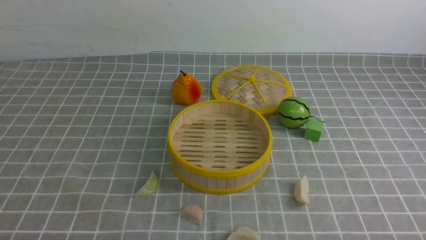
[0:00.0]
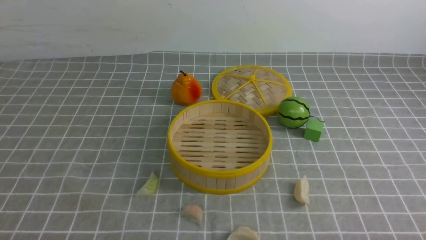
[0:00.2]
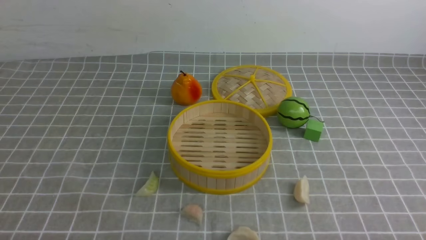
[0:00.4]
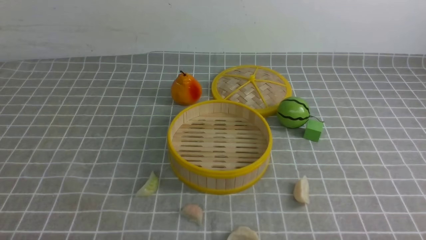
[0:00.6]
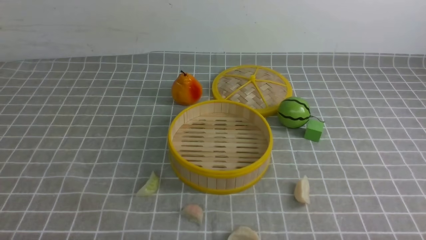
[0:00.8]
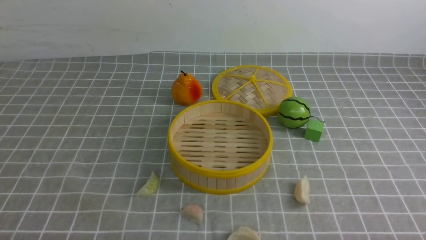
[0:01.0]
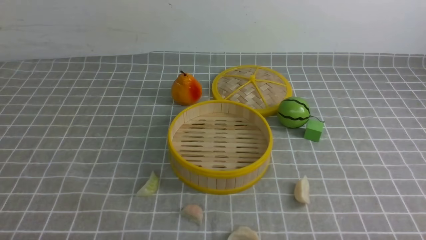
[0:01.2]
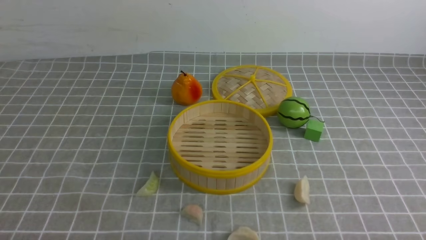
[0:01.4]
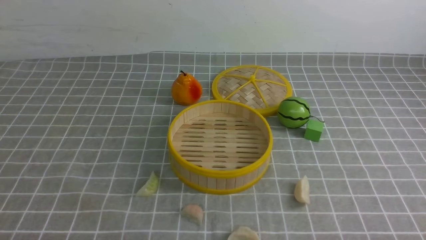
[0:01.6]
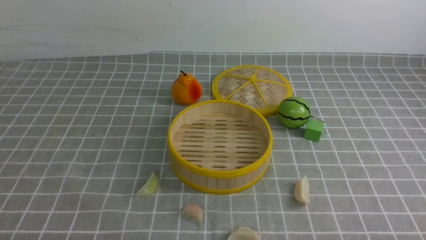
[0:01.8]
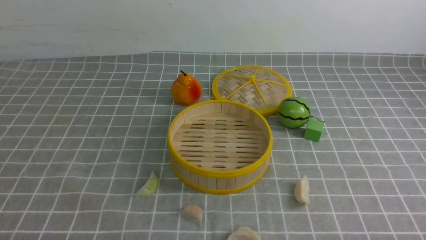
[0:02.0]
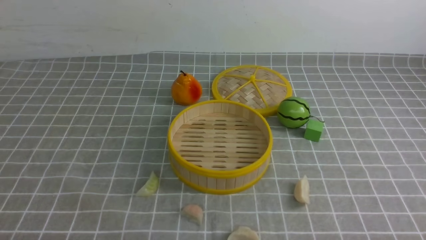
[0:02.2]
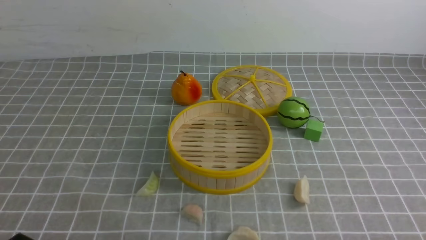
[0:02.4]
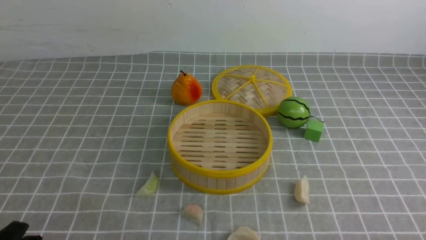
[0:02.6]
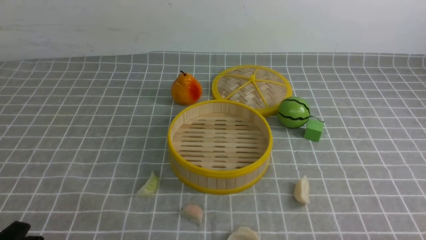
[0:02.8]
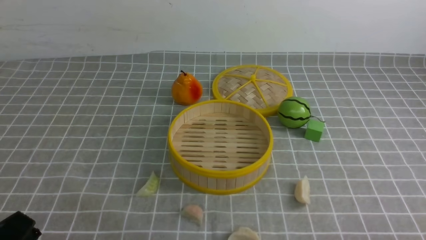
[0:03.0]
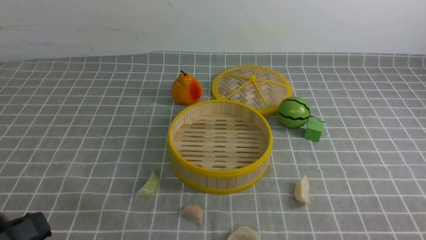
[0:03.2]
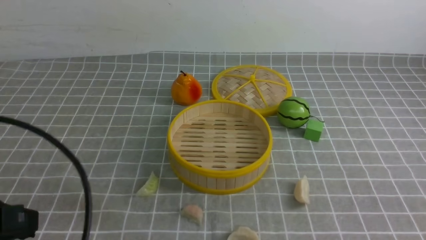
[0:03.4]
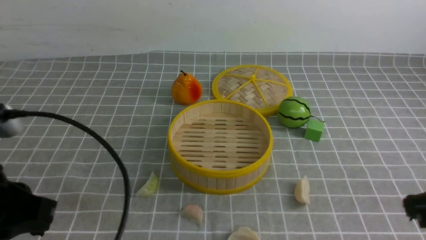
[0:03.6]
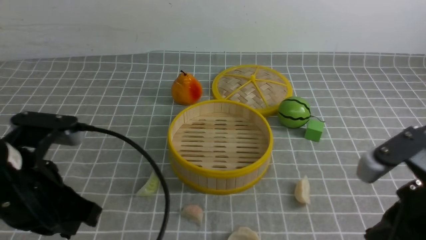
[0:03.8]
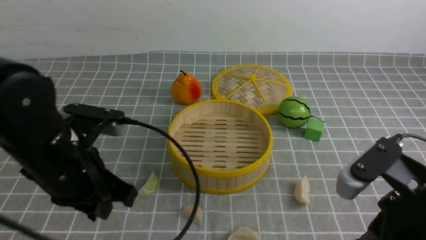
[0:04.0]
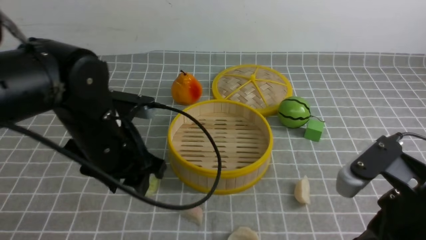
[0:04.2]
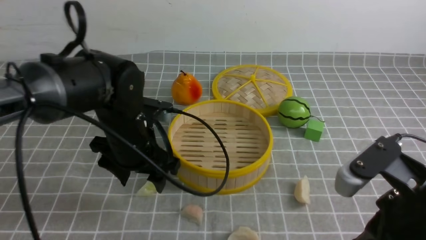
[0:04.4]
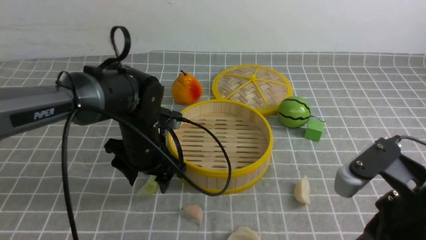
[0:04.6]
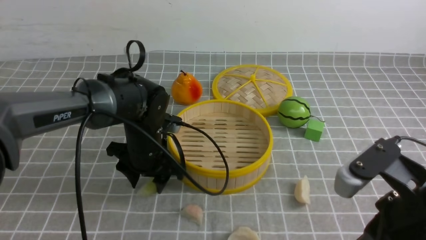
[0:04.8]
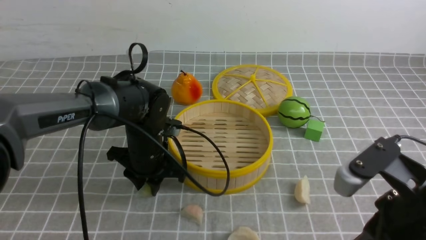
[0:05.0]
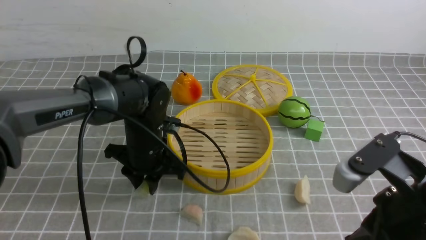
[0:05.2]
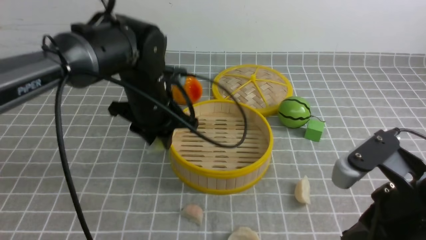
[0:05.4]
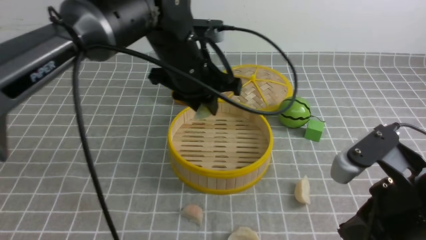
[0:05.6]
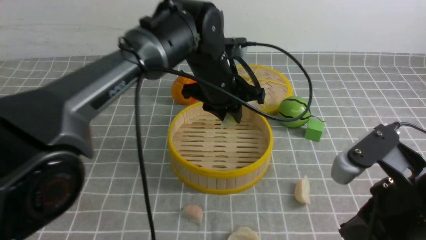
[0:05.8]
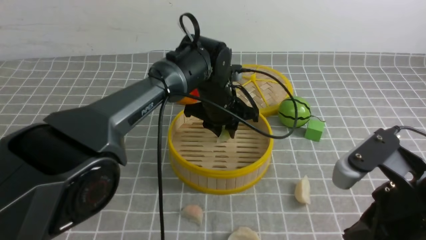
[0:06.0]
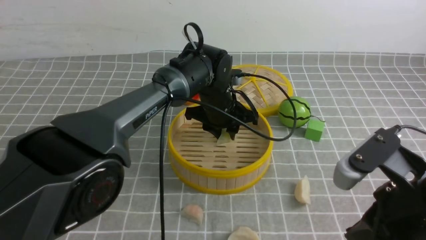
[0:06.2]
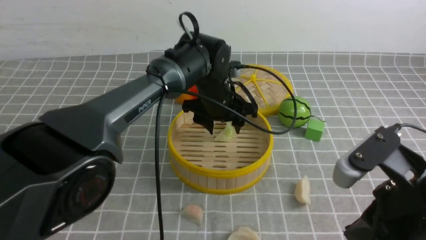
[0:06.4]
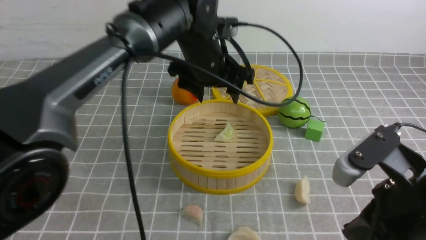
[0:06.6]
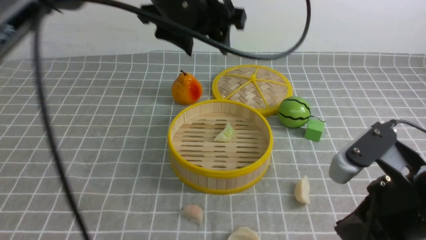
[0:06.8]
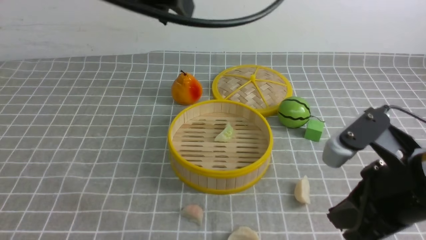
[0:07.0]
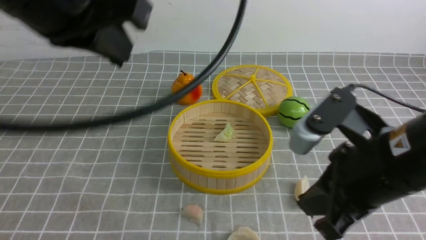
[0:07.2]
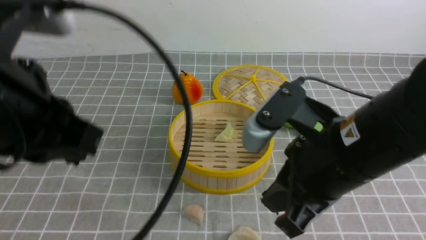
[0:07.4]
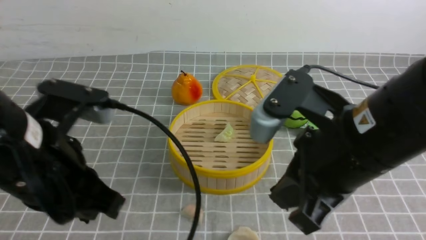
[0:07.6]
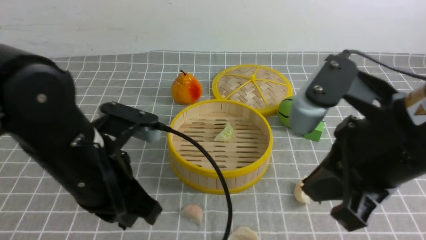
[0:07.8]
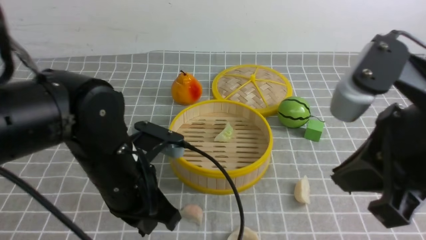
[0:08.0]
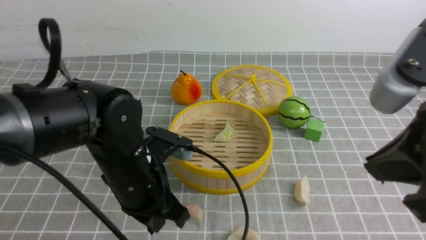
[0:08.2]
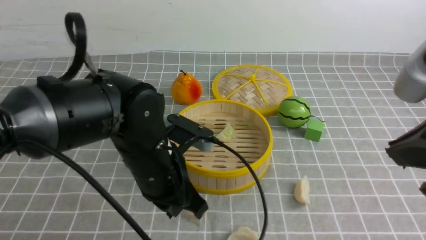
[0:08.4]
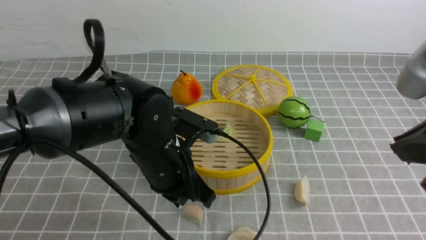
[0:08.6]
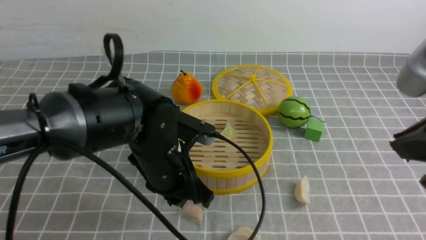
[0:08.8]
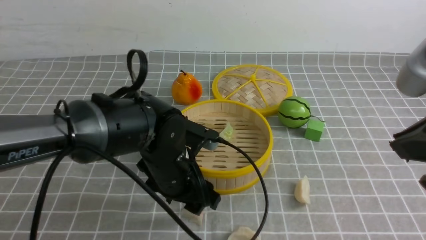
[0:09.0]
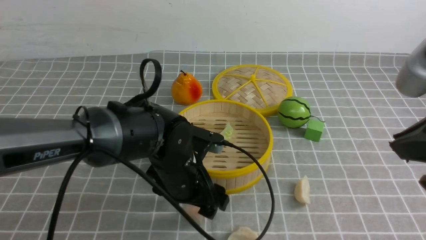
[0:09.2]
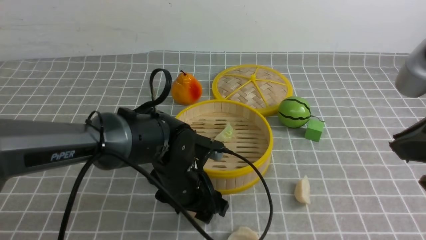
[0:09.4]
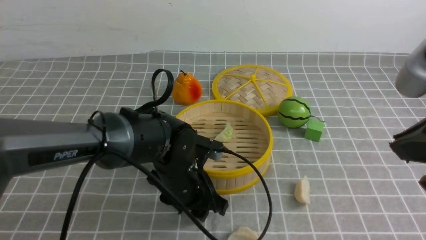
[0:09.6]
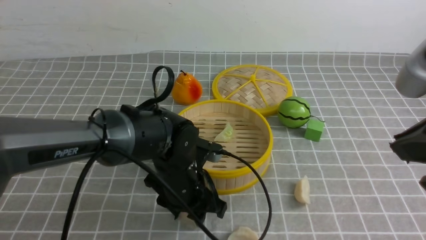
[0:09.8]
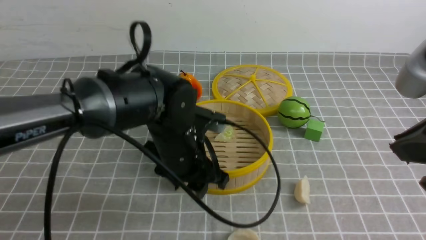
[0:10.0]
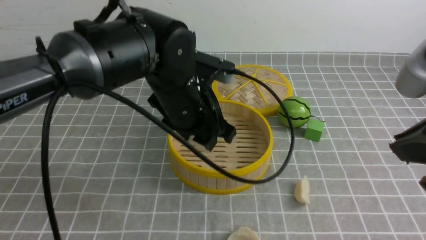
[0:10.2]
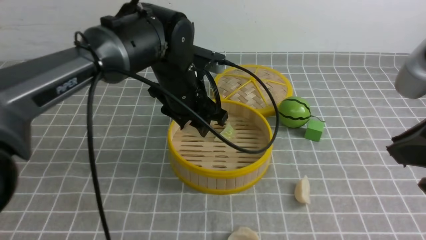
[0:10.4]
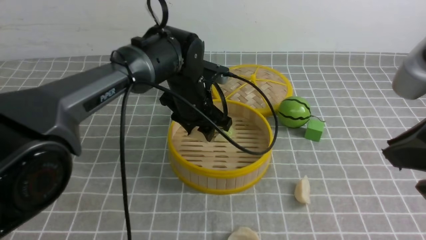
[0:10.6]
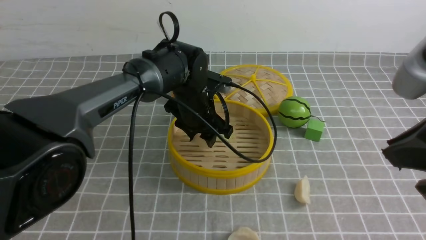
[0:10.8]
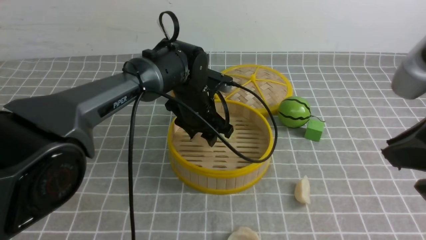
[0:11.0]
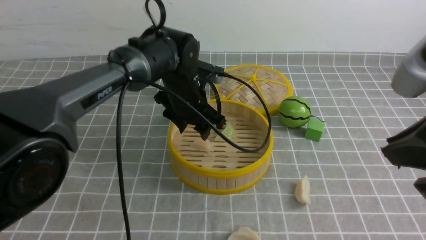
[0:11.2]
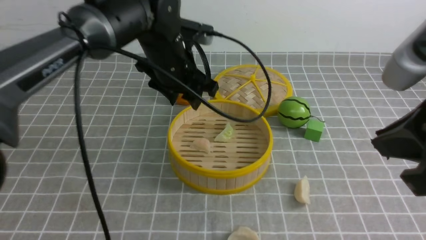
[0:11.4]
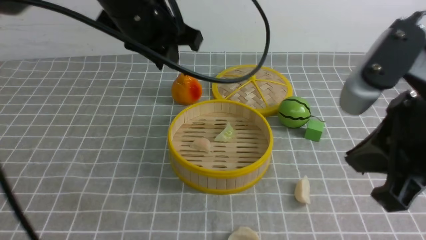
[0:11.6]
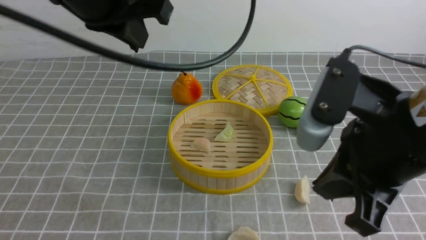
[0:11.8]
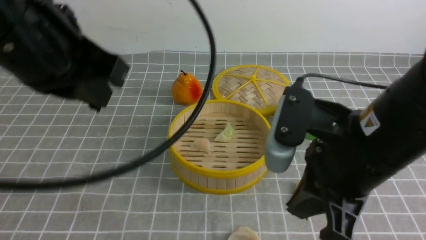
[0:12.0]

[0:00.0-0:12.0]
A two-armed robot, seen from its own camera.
Task of the whole recording: put the dumplings into the steamer on the table with the grey tablecloth.
Step, 0:00.0 to 0:05.2: use the left arm to grab a dumpling.
Step, 0:05.4 to 0:06.6: use the left arm to put the dumpling into the steamer.
Step, 0:06.8 to 0:09.8: use the left arm to grab a dumpling.
Step, 0:10.0 to 0:11.4: use the left arm to put the dumpling into the steamer.
0:00.0 to 0:01.6: The two grippers keep their place.
0:01.6 to 0:03.0: The left gripper goes some 5 cm upward.
0:03.0 to 0:04.4: The right gripper shifts some 15 cm forward, to the left and upward. Meanwhile the left gripper goes about 30 cm forward and to the right, and opens up.
0:04.4 to 0:06.0: The left gripper is displaced to the right and forward by about 15 cm, and closes up.
0:06.0 to 0:07.6: The left gripper goes about 30 cm backward, to the left and upward, and closes; the right gripper goes about 10 cm to the left and upward.
0:07.6 to 0:09.0: The right gripper moves to the right and upward, about 10 cm. Meanwhile the left gripper travels downward, forward and to the right by approximately 20 cm, and opens its fingers.
0:09.0 to 0:10.4: The left gripper heads forward and upward, covering about 10 cm.
0:10.4 to 0:12.0: The left gripper travels backward, upward and to the left by approximately 25 cm, and closes up, while the right gripper is displaced to the left and downward by approximately 10 cm.

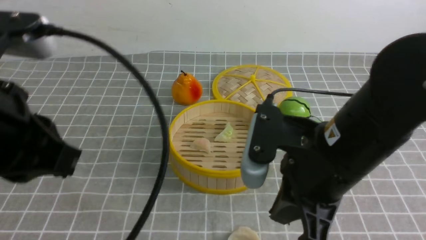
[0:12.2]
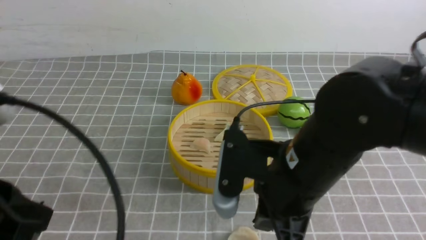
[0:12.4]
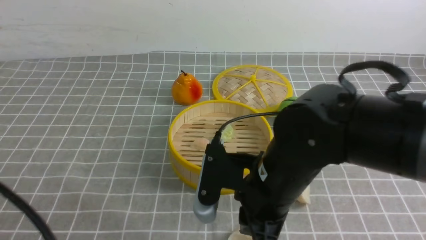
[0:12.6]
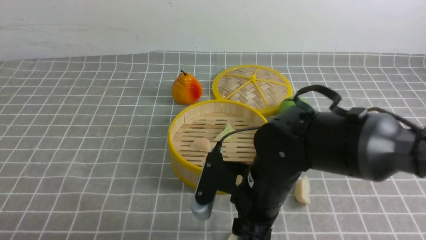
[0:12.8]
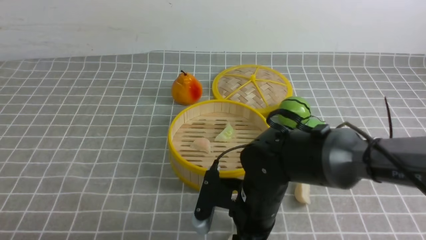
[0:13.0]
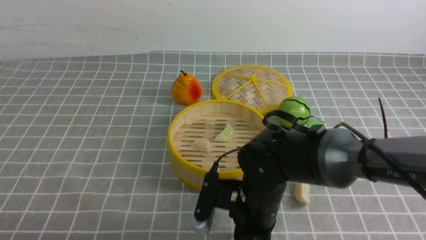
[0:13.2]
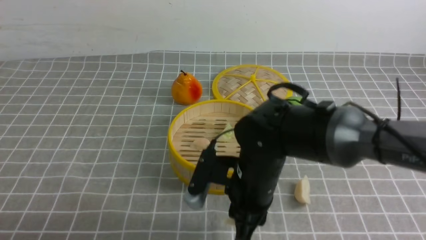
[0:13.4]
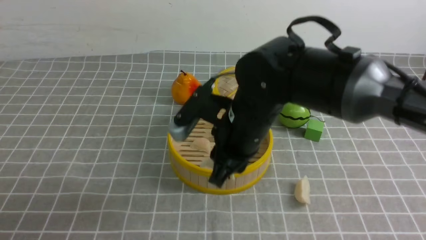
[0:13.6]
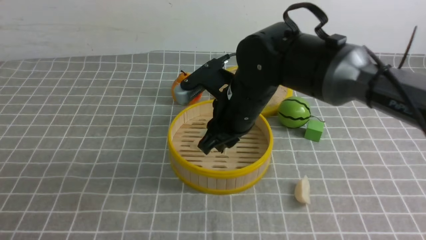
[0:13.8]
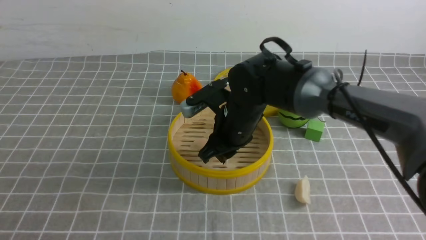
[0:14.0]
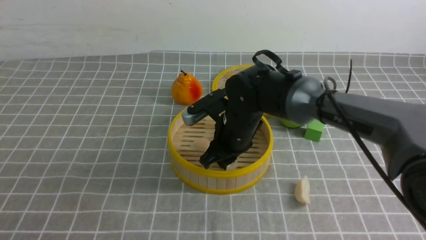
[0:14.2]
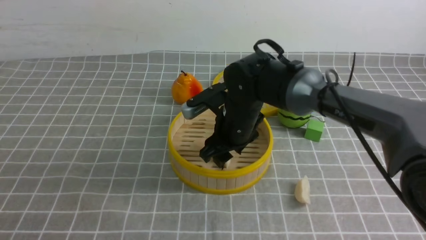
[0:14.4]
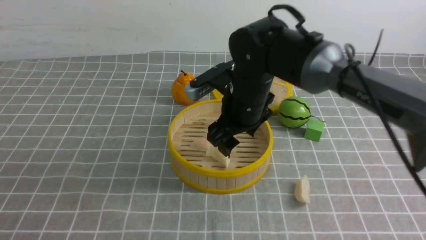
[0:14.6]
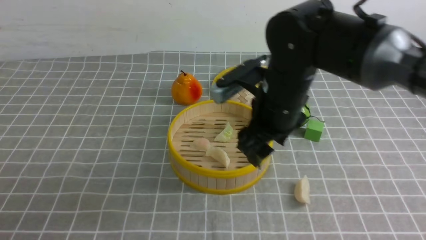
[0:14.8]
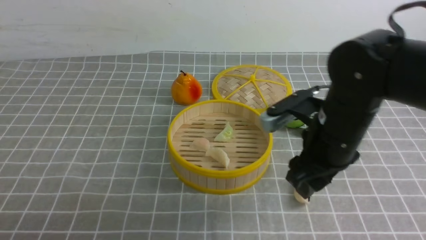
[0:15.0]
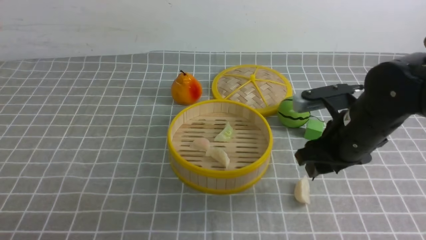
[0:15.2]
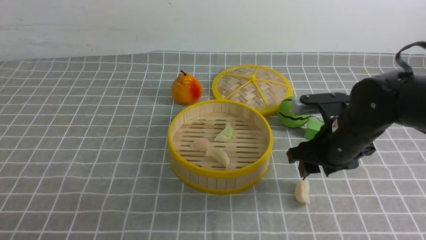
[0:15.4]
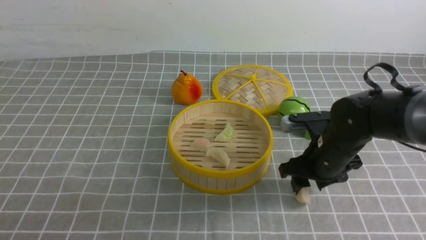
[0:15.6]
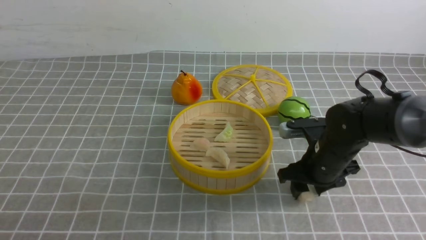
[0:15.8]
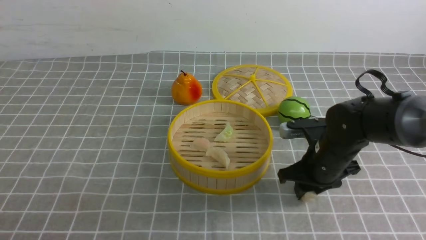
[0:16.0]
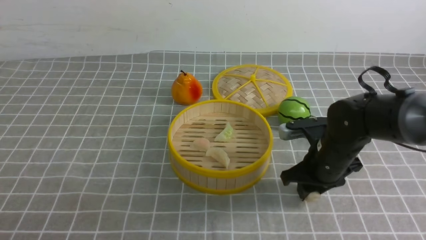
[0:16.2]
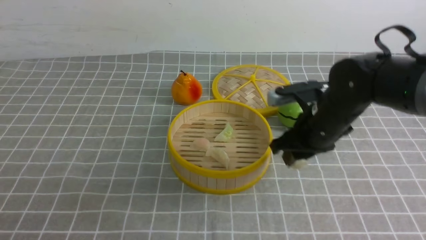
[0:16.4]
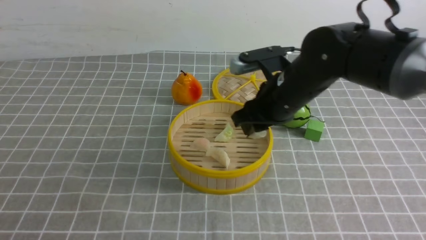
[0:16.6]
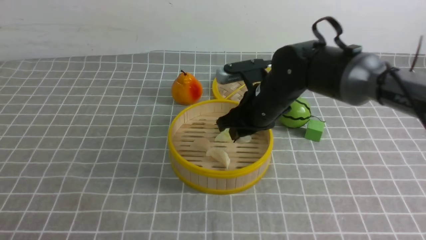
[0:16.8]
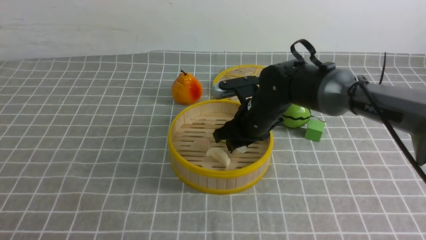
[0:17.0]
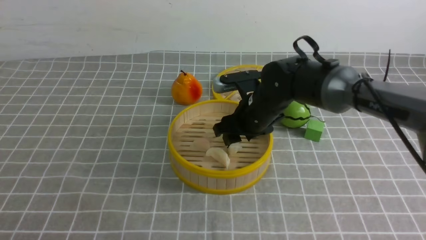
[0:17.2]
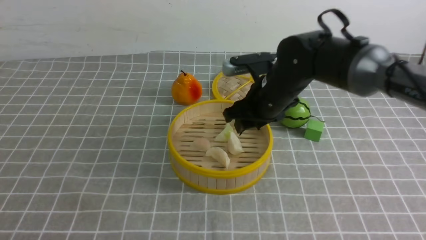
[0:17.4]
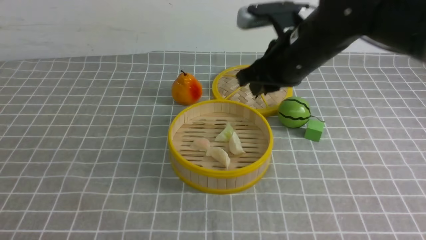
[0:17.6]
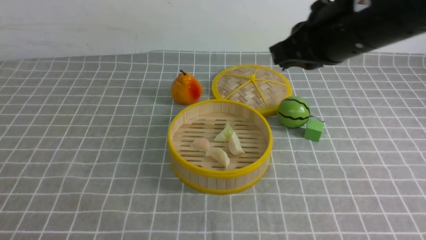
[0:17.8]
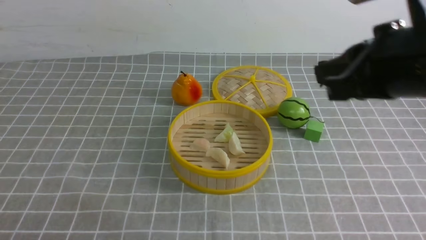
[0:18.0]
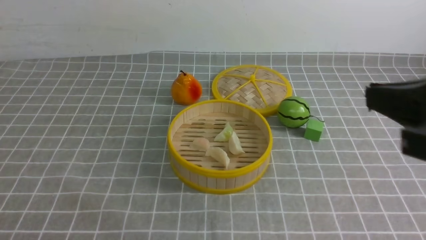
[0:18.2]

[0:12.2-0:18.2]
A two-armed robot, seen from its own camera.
Task of the whole recording: put the dumplings into the steamer on the table with the grey tablecloth.
Step, 0:12.2 to 0:13.2: use the right arm to grab a dumpling.
Step, 0:13.4 to 0:14.6: use the right arm to put the dumpling into the steamer.
Step, 0:14.8 to 0:16.2: use the right arm to grab a dumpling.
Step, 0:16.4 to 0:17.4: use the right arm to put the dumpling into the steamer.
0:12.2 to 0:13.8: The right gripper is displaced forward, to the left and downward by roughly 15 cm, and opens up; the left gripper moves backward and downward, approximately 10 cm.
0:13.8 to 0:15.2: The right gripper heads to the right, covering some 15 cm, and opens its fingers.
0:15.2 to 0:16.6: The right gripper heads to the left and forward, covering roughly 10 cm, and reaches approximately 10 cm downward, then returns.
0:16.6 to 0:18.2: The left gripper ends up approximately 5 cm from where it was; the right gripper goes about 30 cm backward, upward and to the right, and closes.
